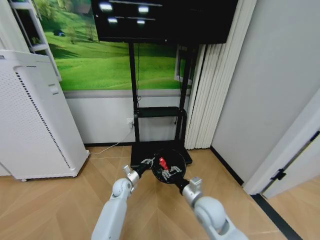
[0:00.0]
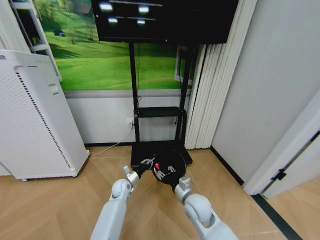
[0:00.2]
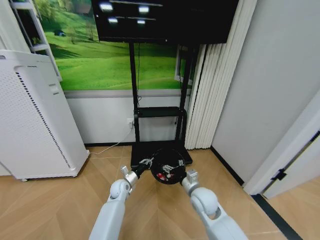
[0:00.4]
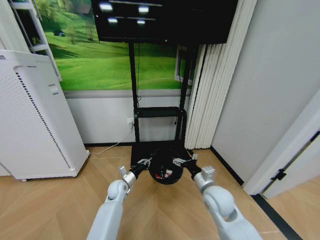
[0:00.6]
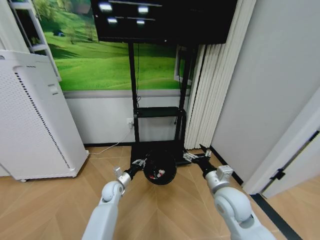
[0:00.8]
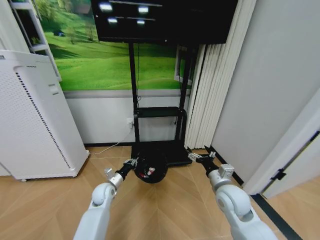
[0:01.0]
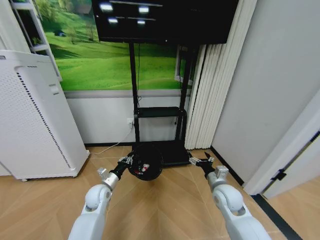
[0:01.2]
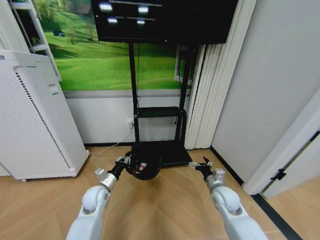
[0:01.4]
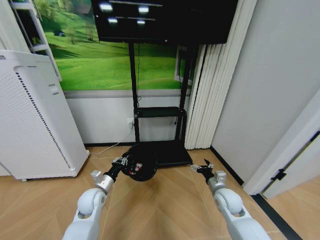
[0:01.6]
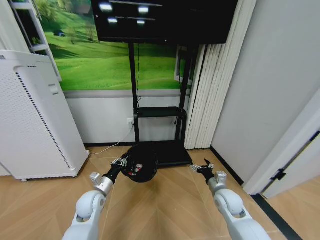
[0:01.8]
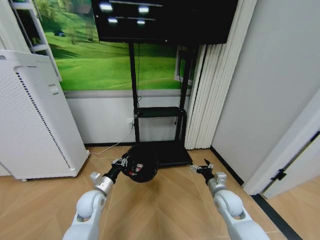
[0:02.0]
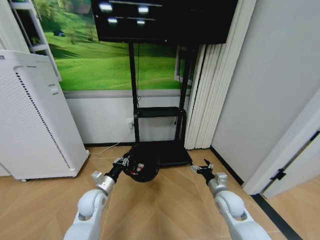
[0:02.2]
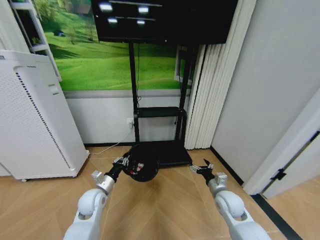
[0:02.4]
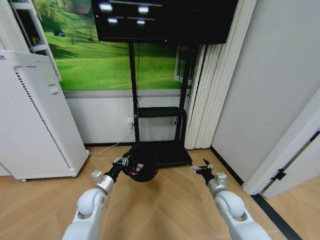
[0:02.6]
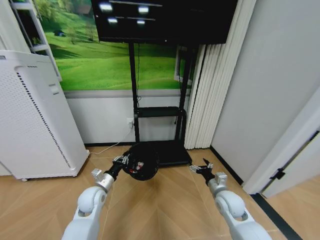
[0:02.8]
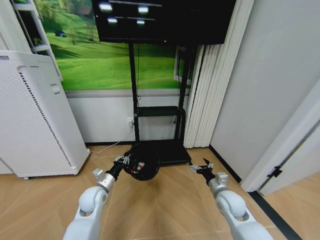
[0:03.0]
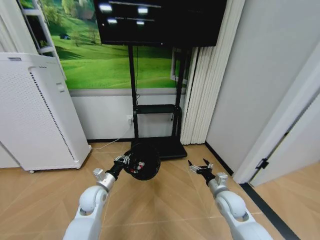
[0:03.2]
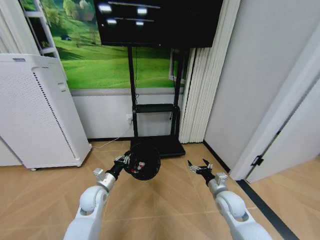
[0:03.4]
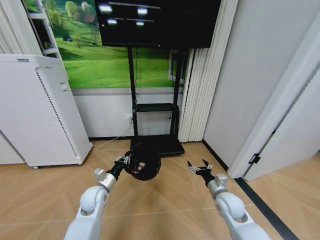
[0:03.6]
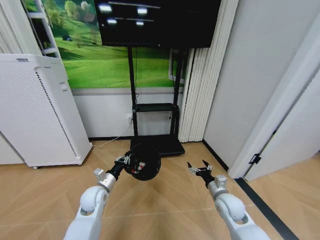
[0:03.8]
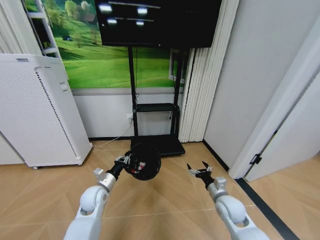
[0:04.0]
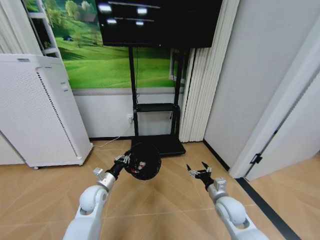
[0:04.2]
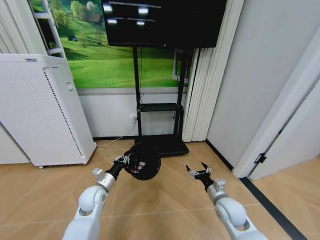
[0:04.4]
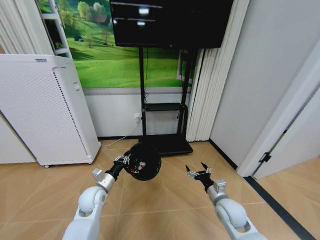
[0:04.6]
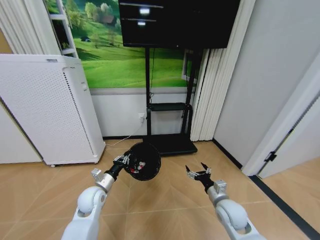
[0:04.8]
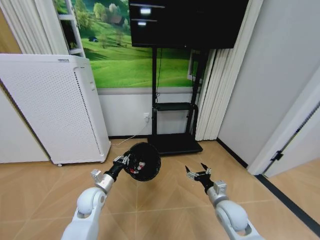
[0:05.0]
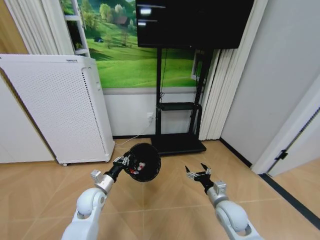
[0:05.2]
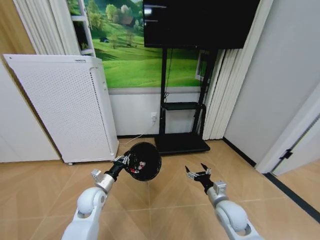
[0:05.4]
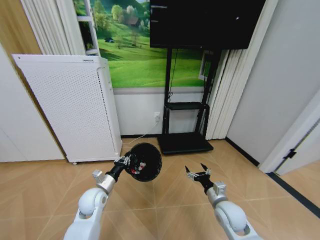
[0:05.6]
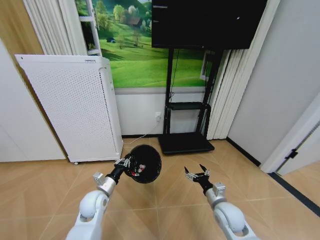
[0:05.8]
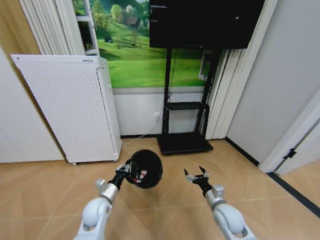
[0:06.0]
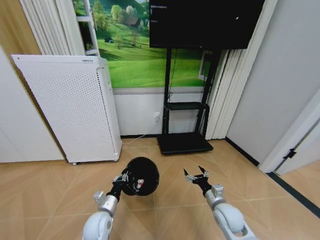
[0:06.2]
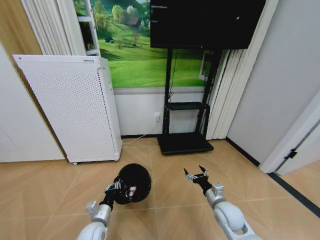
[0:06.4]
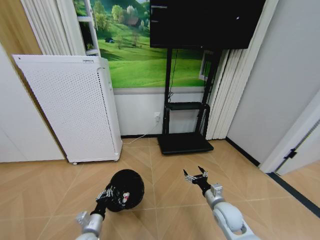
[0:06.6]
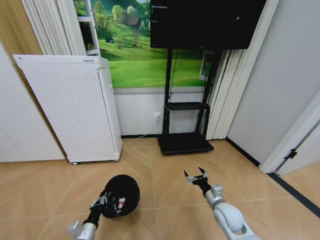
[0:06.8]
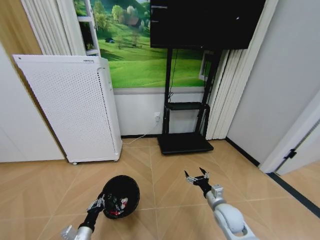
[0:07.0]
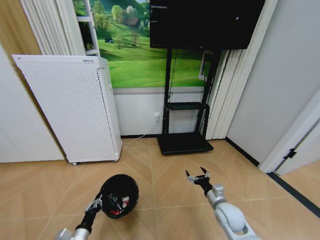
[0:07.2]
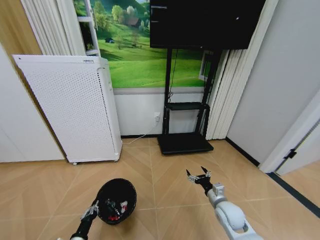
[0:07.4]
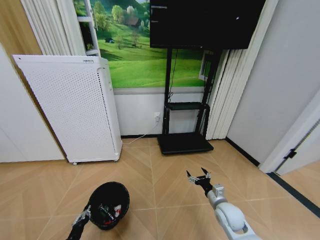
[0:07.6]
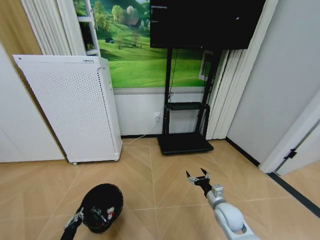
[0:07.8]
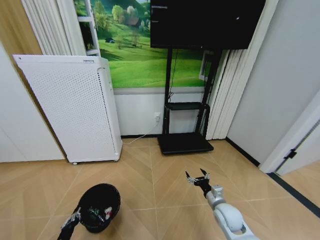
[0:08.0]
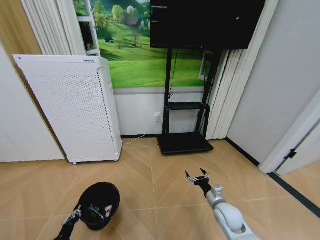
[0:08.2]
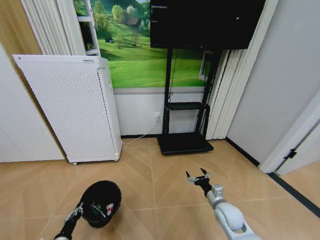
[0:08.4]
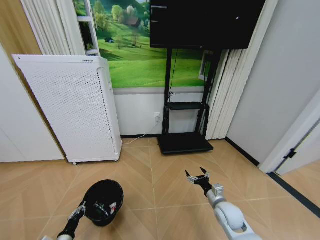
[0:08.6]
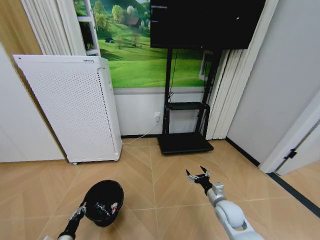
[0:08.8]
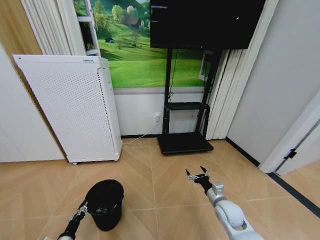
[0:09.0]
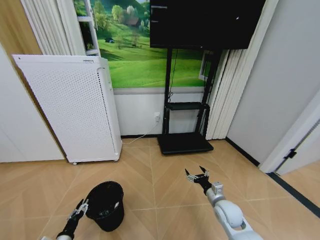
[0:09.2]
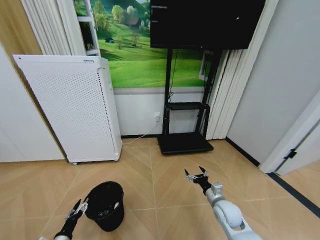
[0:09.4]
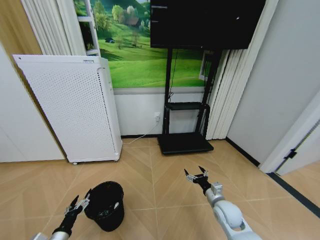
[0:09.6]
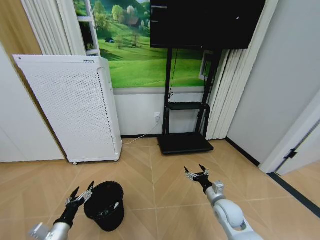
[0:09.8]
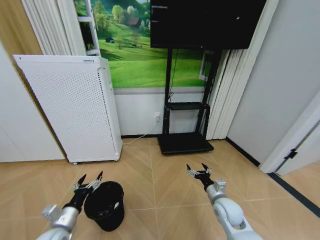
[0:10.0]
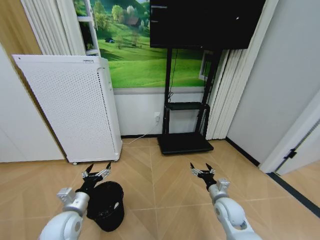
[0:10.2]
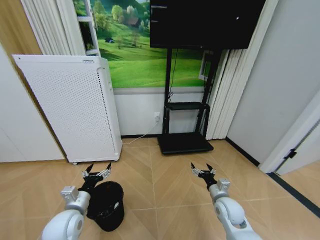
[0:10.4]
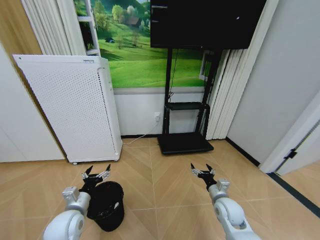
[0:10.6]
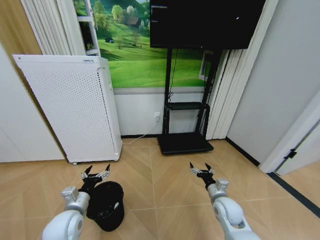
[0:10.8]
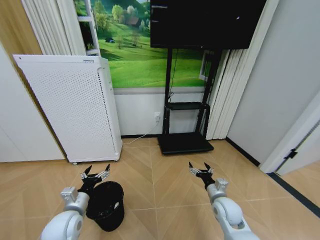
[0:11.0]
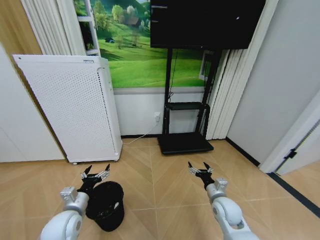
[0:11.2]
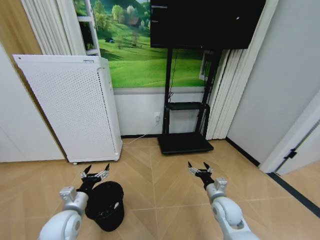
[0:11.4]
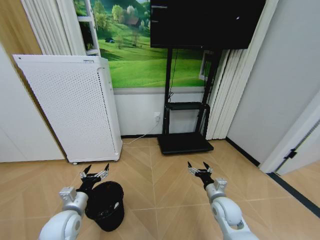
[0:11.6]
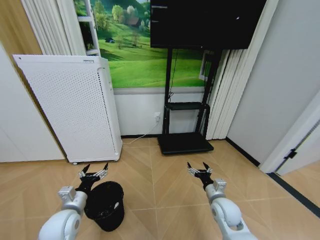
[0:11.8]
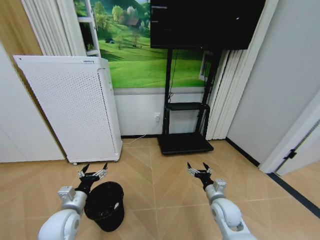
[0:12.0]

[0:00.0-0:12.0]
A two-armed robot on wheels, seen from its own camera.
Task of the whole recording: Pick up the trash bin and place the garbage on the floor into it.
0:00.0 to 0:01.6: The left gripper heads backward, upward and to the left, covering approximately 15 cm. Meanwhile the right gripper shifts some 15 cm to the right, forward and downward, and opens its fingers.
0:01.6 to 0:03.0: The grippers stay close to where they were, moving slightly.
0:04.4 to 0:06.0: The left gripper changes place by approximately 5 cm.
0:06.0 to 0:07.6: The left gripper moves backward, downward and to the left, approximately 20 cm.
0:07.6 to 0:09.0: The left gripper moves to the left, approximately 5 cm.
0:09.0 to 0:10.4: The left gripper shifts approximately 25 cm upward, to the right and forward, and opens up.
0:10.4 to 0:12.0: There are only small adjustments of the grippers.

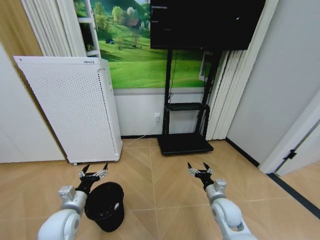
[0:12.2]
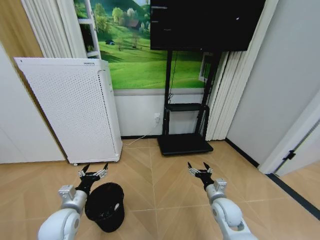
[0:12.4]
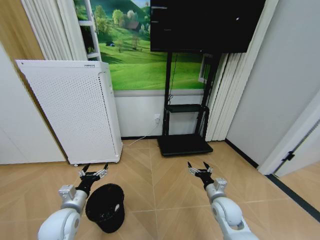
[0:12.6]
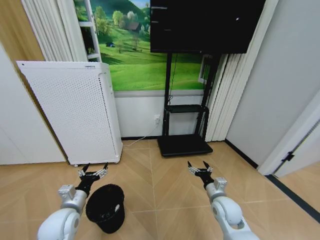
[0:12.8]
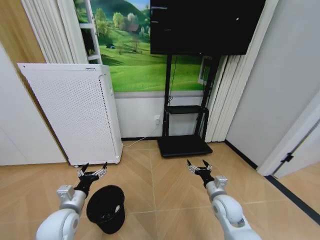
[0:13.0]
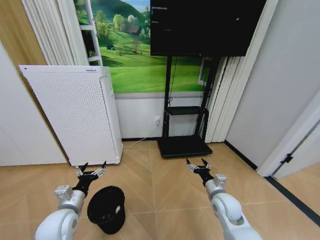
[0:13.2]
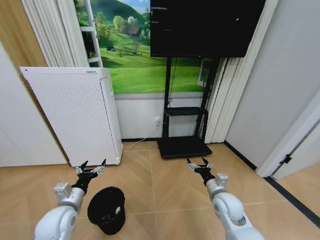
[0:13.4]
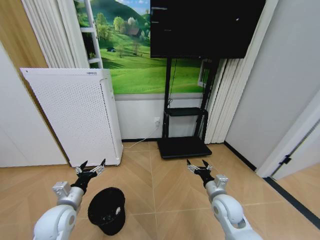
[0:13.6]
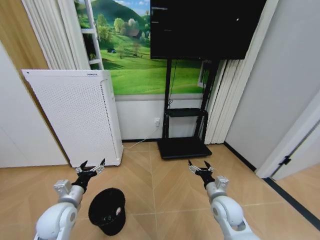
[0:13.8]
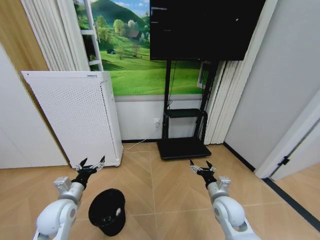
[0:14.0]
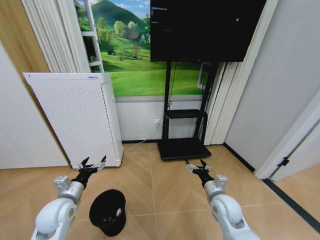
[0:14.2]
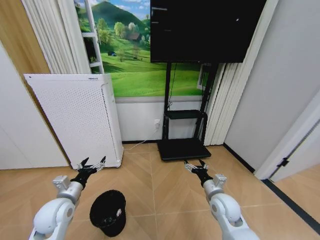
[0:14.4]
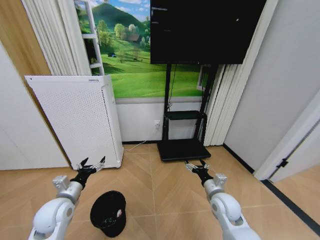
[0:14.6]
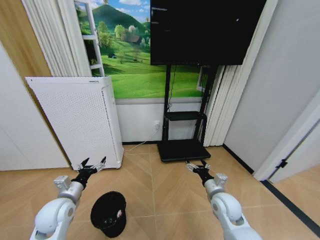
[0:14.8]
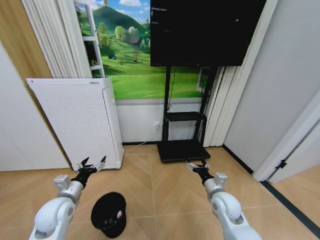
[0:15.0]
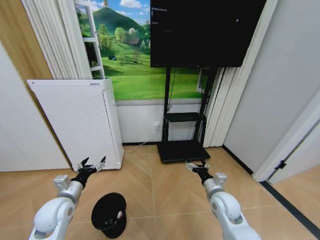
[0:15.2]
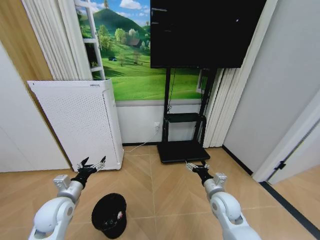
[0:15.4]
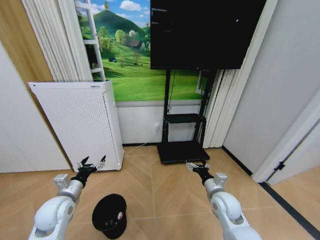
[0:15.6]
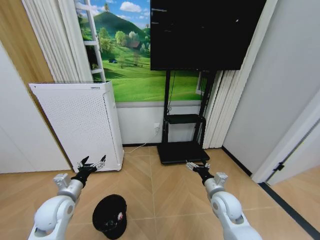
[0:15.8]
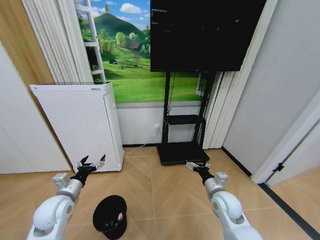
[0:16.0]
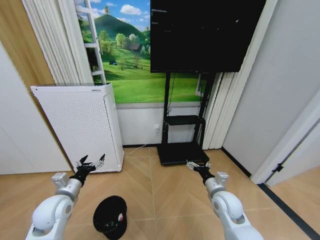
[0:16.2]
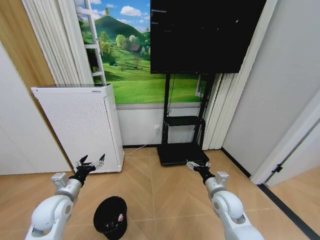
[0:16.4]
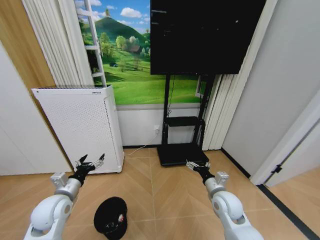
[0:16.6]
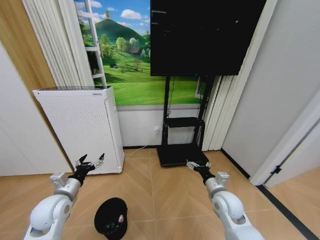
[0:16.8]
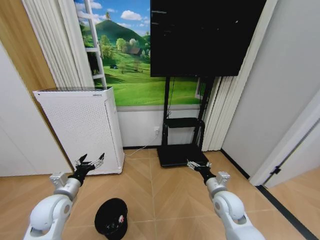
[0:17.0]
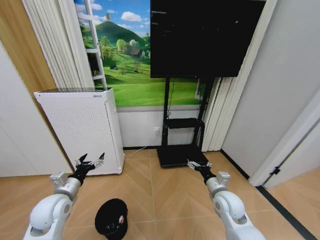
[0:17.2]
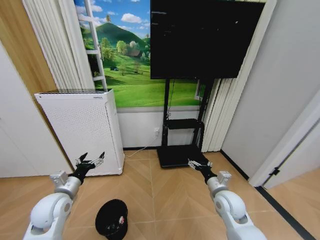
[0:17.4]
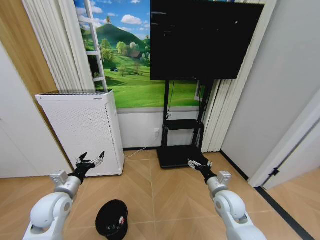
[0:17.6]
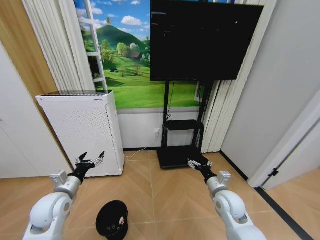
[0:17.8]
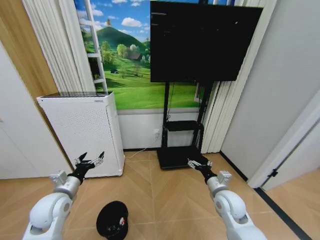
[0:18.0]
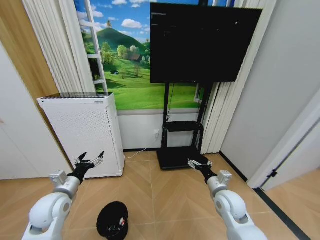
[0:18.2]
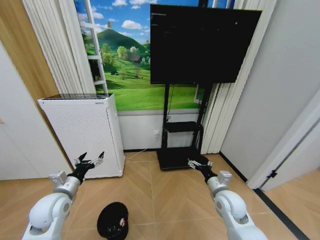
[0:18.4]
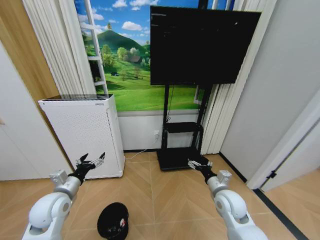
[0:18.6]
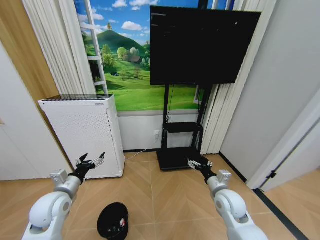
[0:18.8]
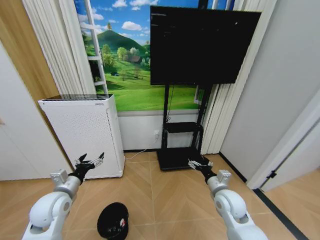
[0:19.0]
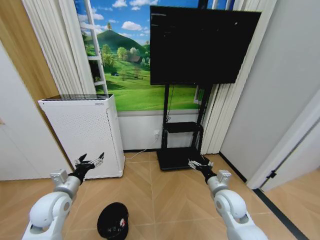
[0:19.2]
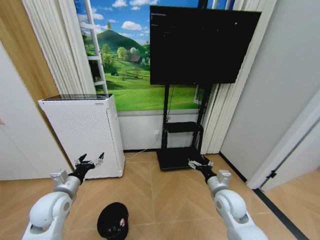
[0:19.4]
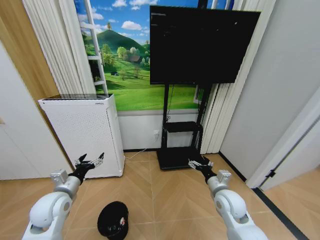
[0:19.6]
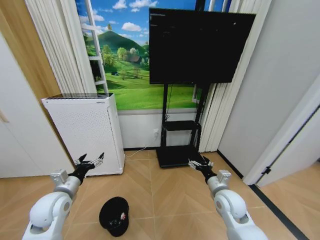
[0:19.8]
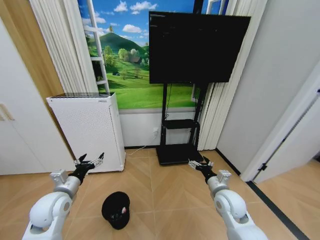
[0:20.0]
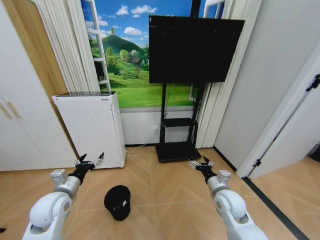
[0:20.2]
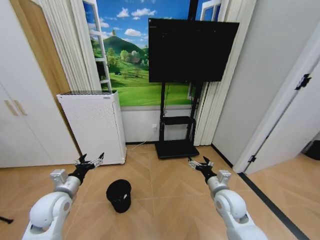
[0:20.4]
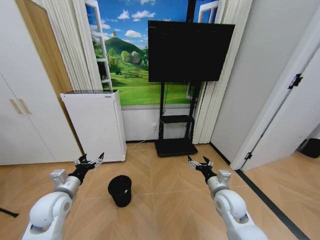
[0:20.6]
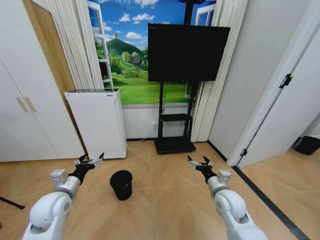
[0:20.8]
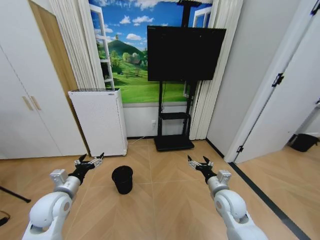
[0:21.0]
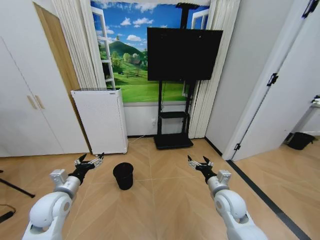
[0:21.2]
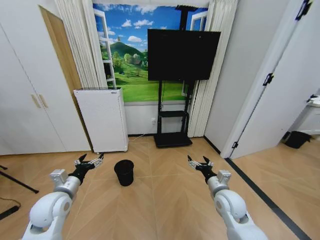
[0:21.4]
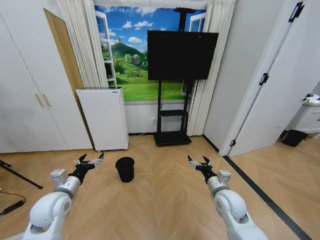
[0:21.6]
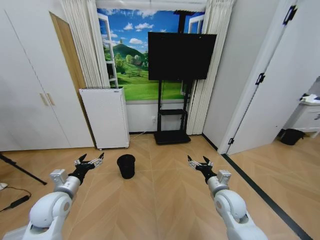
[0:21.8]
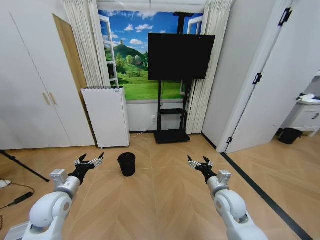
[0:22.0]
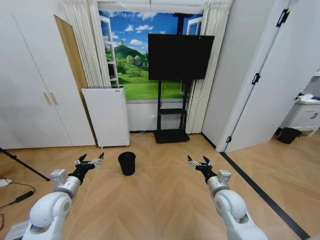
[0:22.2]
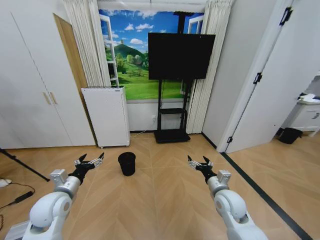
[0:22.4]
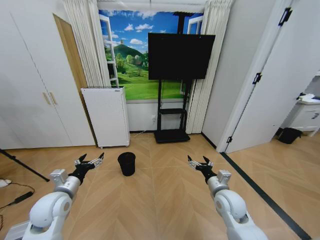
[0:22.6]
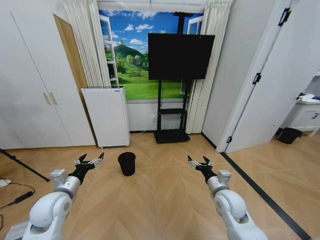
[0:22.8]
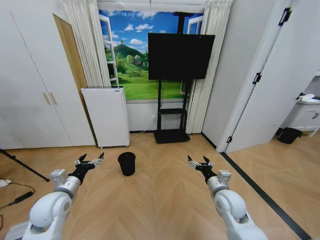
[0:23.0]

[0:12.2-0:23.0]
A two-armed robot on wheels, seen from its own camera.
Task of the whole recording: Pick up the trash bin and place the garbage on the floor into it.
0:12.2 to 0:16.8: The grippers stay close to where they were, moving slightly.
0:16.8 to 0:18.4: Both grippers stay put.
0:21.4 to 0:23.0: The two grippers keep their place.
